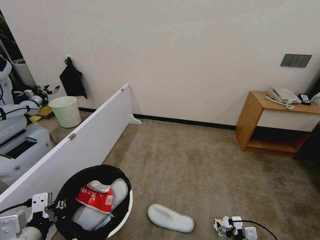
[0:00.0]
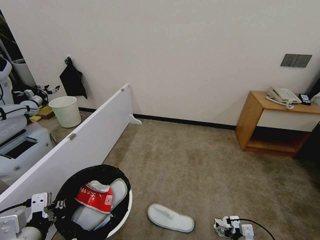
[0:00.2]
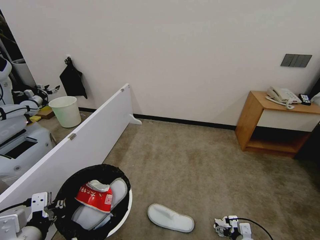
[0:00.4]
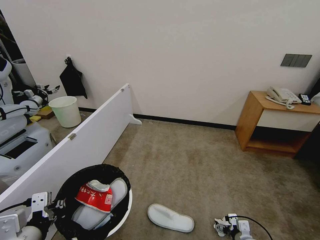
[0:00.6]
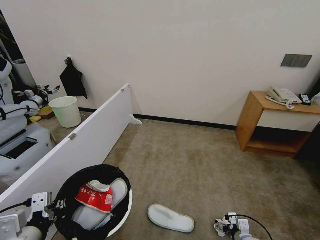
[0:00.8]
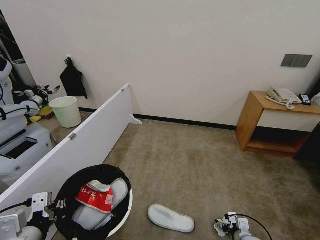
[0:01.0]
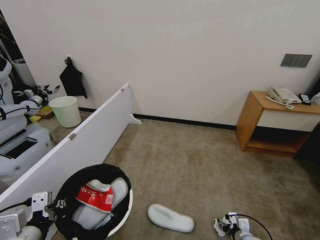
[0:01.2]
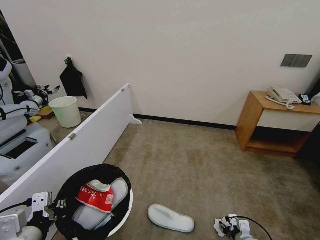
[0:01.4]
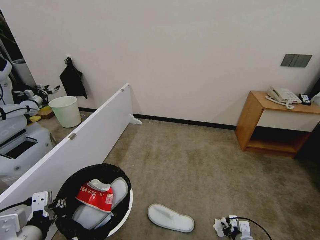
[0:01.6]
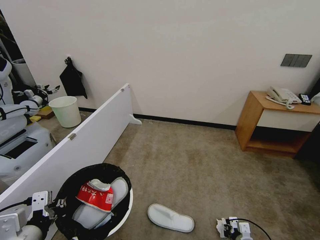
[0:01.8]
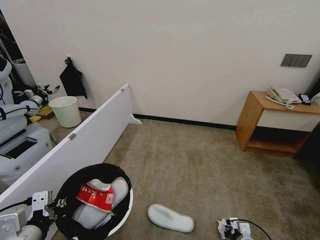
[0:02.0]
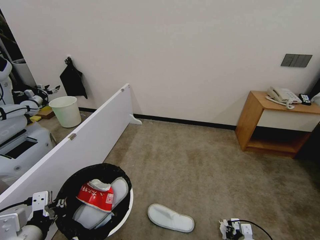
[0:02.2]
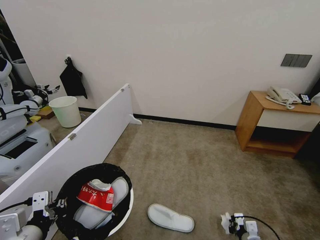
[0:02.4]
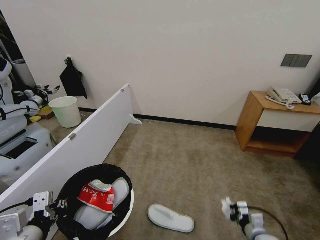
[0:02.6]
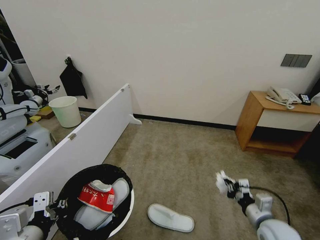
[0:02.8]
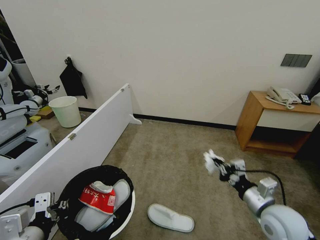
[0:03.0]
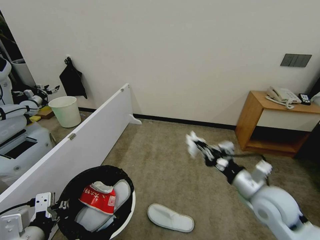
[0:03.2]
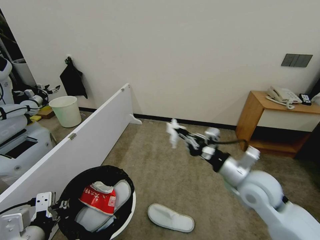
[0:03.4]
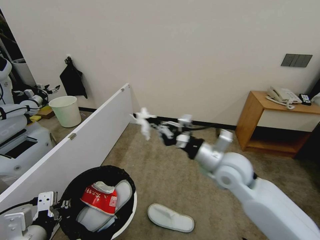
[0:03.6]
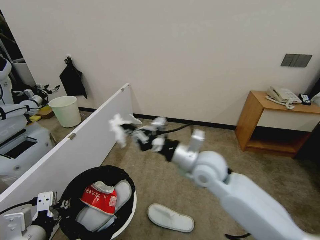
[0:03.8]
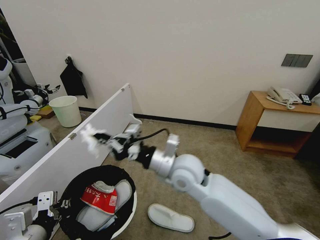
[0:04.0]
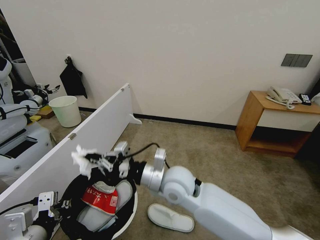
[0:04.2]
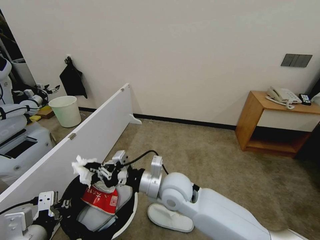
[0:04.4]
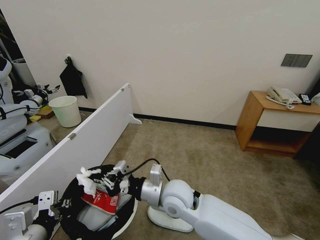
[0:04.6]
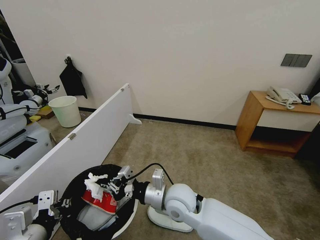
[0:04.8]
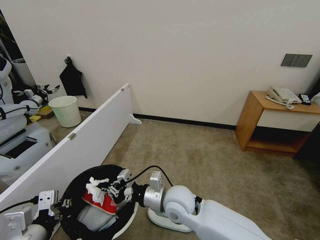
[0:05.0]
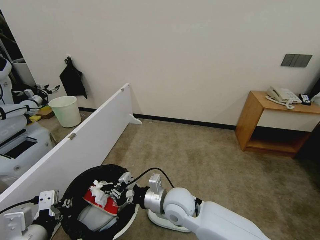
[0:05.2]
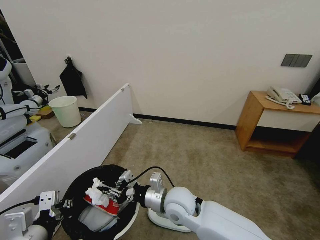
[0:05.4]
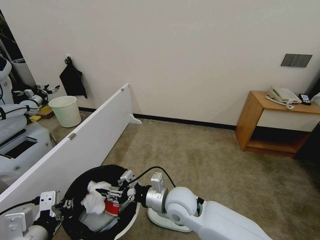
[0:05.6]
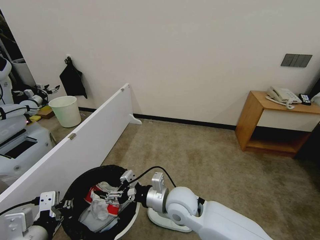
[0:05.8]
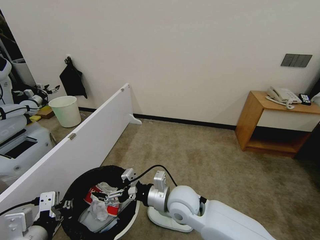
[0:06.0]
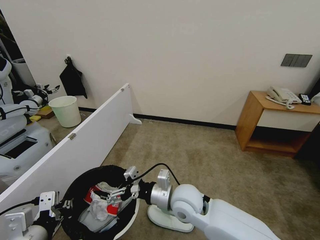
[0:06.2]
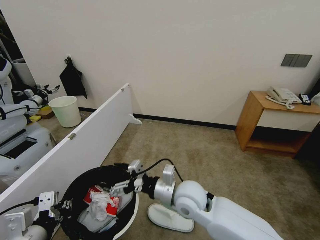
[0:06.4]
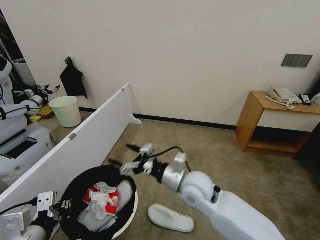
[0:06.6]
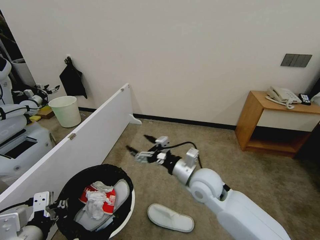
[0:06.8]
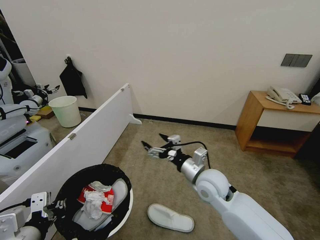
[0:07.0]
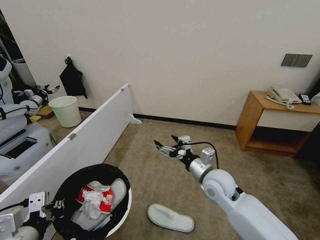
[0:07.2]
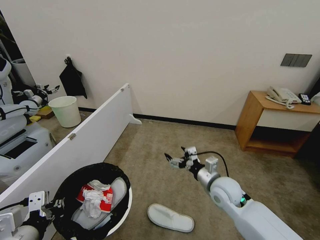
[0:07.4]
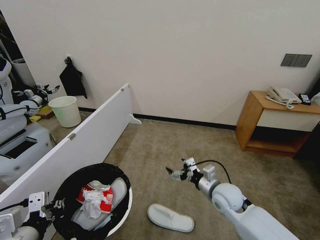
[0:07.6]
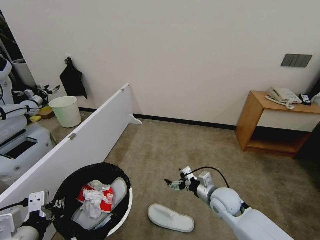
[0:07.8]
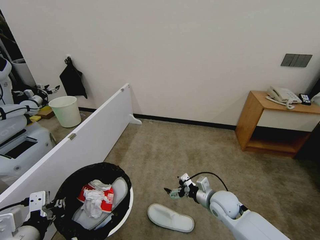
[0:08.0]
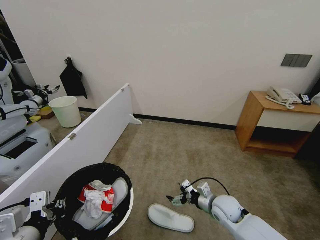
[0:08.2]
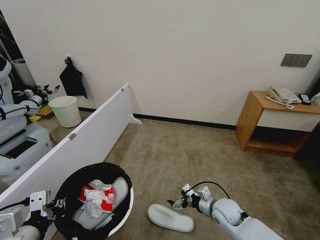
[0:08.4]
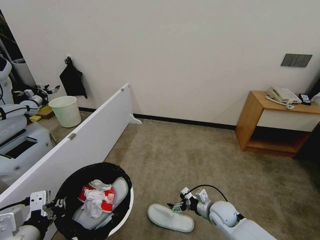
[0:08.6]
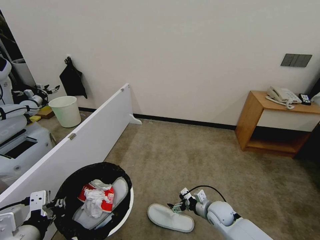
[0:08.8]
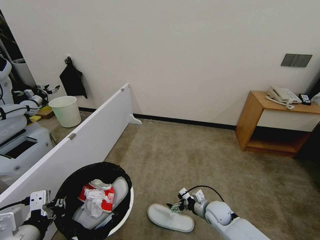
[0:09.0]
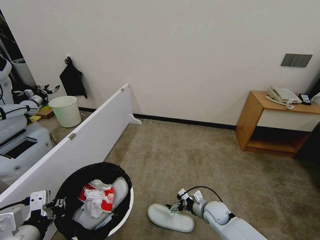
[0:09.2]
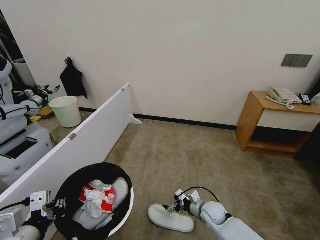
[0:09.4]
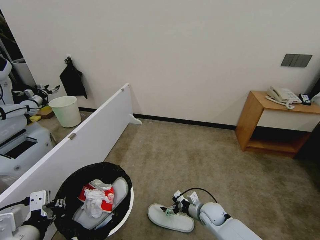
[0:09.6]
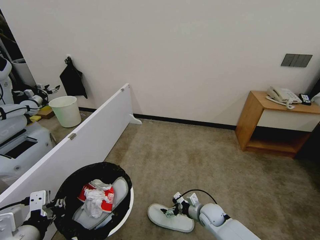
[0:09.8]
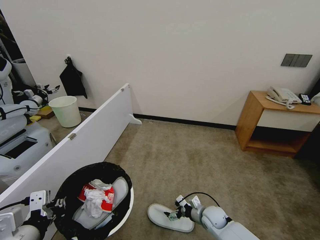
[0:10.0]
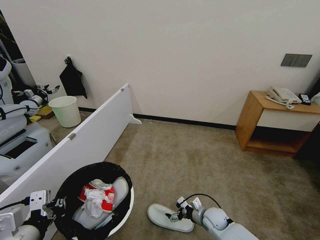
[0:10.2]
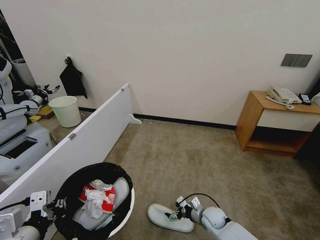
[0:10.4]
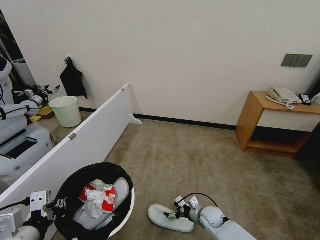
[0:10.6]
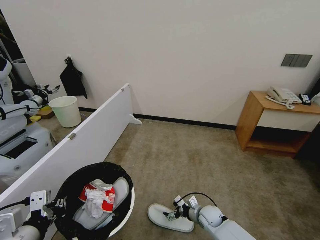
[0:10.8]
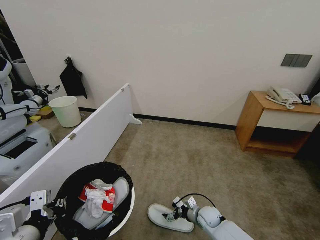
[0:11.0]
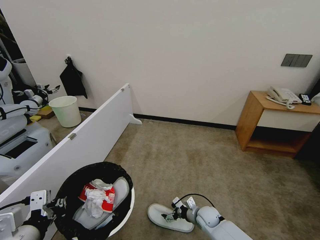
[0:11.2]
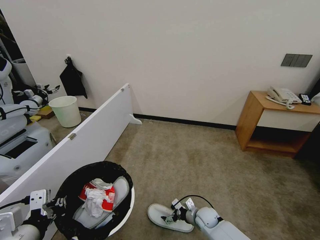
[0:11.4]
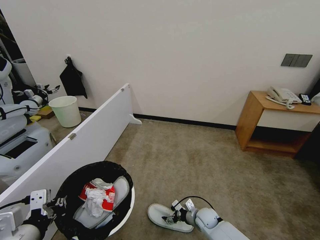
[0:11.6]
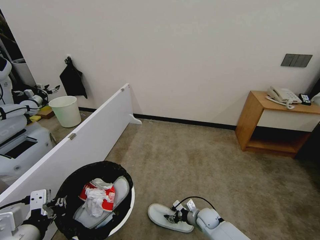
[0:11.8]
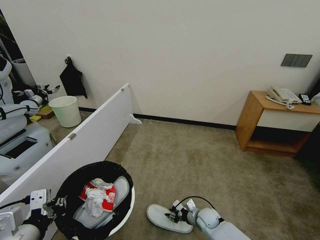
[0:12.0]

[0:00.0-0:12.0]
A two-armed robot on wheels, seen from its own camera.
Task of the whole recording: Pick up the trash bin, then pick up the garbage from the floor and place it into the trash bin.
0:00.0 to 0:01.6: The right gripper changes place by about 5 cm, and closes its fingers.
0:01.6 to 0:03.0: The right gripper travels upward by approximately 25 cm.
0:03.0 to 0:04.4: The right gripper heads to the left, covering roughly 30 cm.
0:04.4 to 0:06.0: The right gripper shifts by about 5 cm, and opens its fingers.
0:06.0 to 0:07.6: The right gripper travels to the right by some 15 cm.
0:07.6 to 0:09.0: The right gripper shifts approximately 15 cm downward.
0:09.0 to 0:10.4: The right gripper is displaced downward by about 5 cm.
0:10.4 to 0:12.0: The right gripper closes.

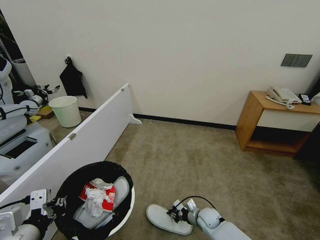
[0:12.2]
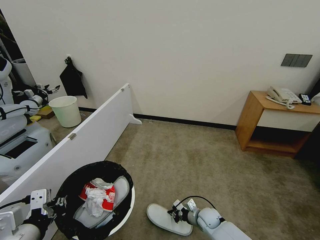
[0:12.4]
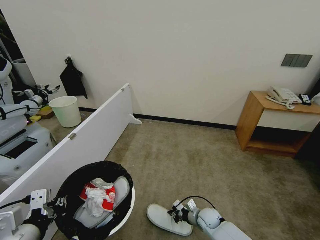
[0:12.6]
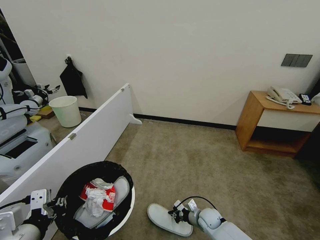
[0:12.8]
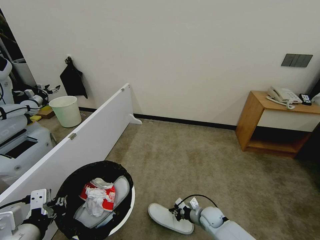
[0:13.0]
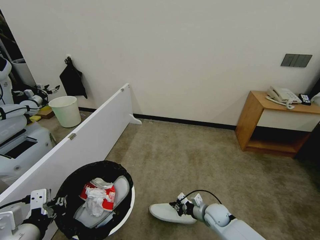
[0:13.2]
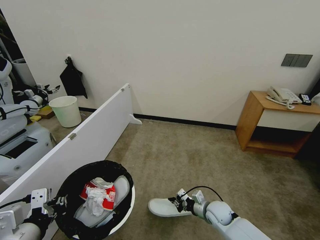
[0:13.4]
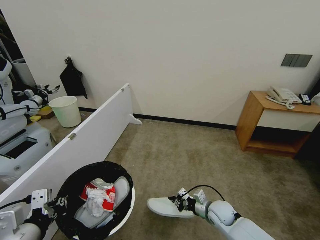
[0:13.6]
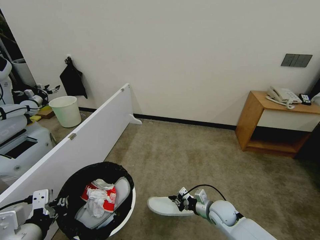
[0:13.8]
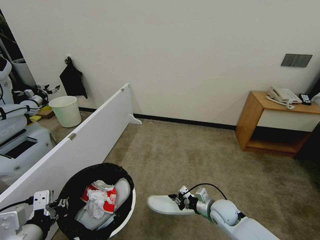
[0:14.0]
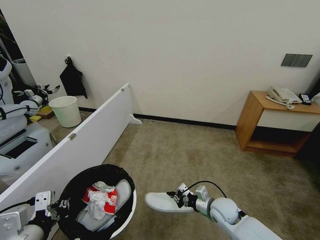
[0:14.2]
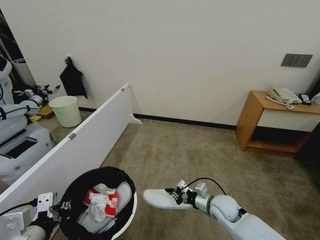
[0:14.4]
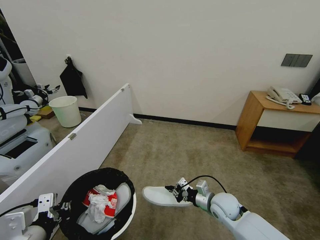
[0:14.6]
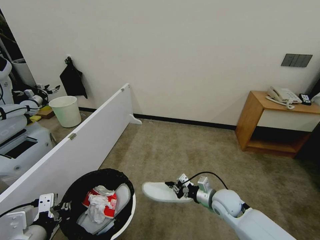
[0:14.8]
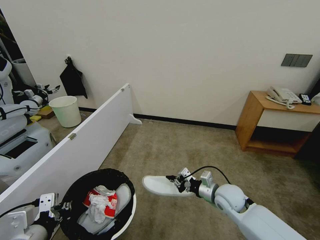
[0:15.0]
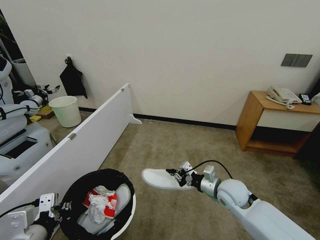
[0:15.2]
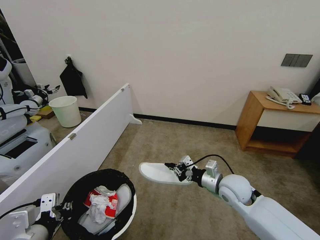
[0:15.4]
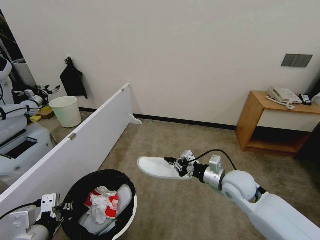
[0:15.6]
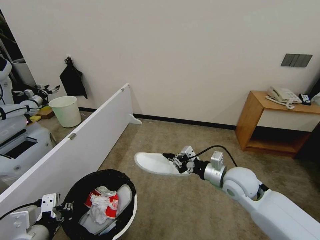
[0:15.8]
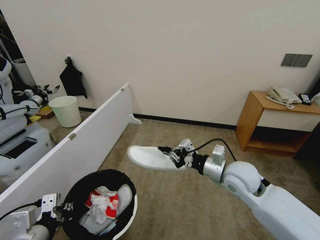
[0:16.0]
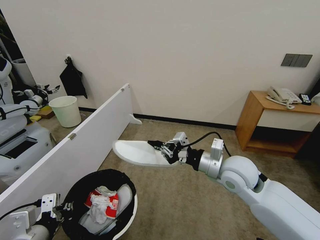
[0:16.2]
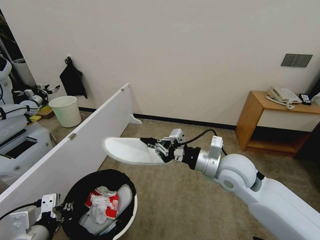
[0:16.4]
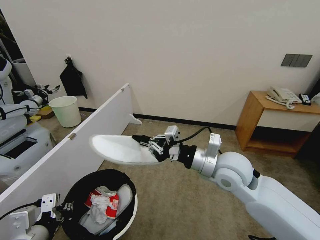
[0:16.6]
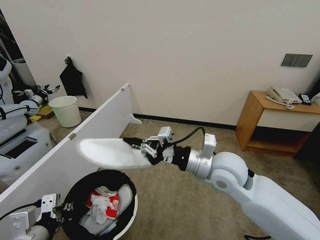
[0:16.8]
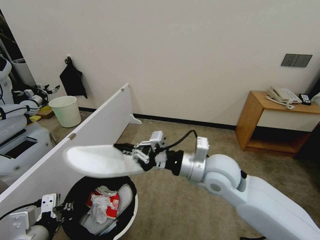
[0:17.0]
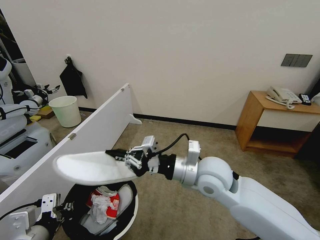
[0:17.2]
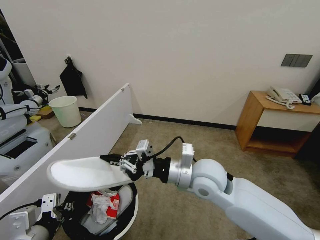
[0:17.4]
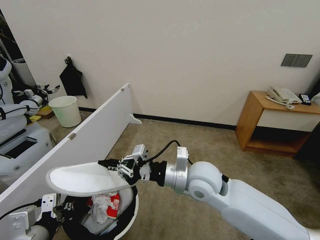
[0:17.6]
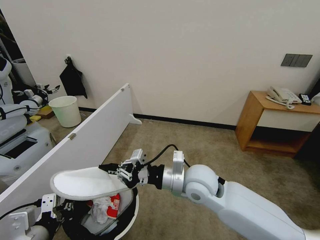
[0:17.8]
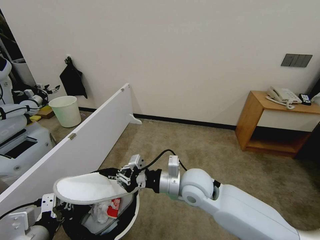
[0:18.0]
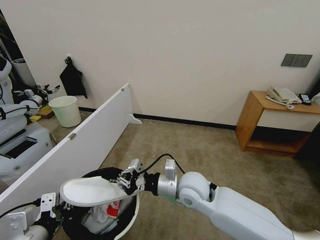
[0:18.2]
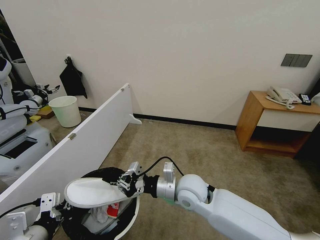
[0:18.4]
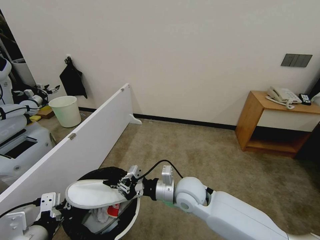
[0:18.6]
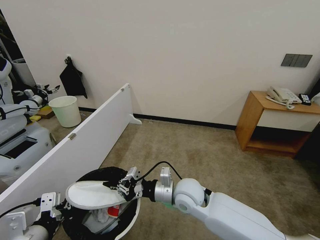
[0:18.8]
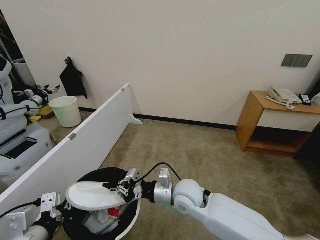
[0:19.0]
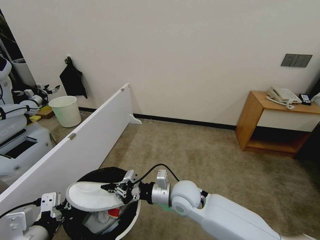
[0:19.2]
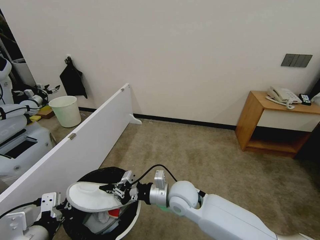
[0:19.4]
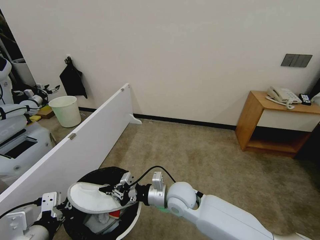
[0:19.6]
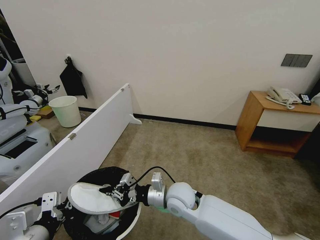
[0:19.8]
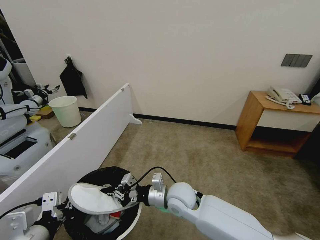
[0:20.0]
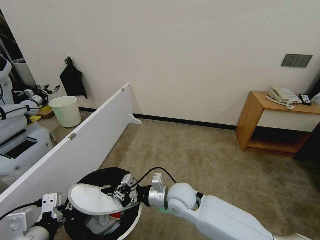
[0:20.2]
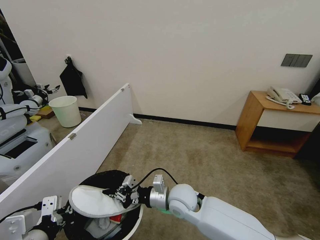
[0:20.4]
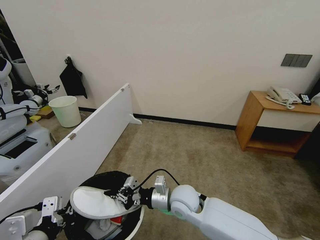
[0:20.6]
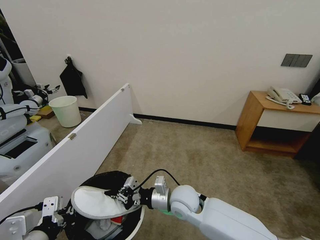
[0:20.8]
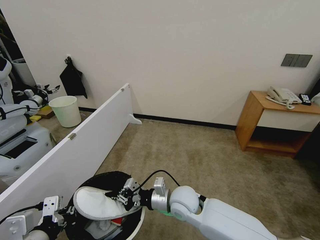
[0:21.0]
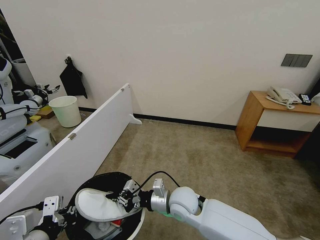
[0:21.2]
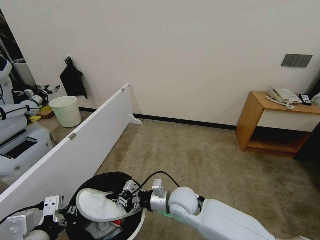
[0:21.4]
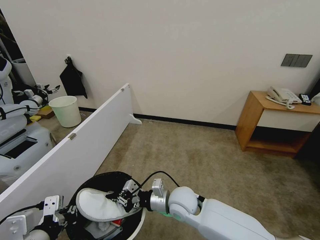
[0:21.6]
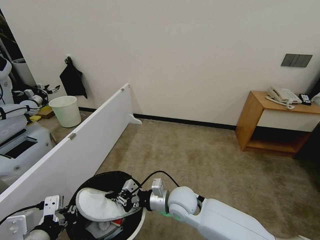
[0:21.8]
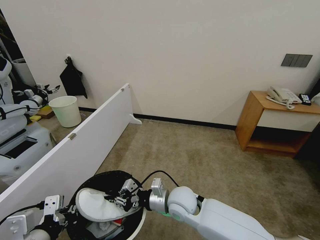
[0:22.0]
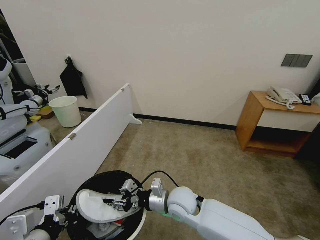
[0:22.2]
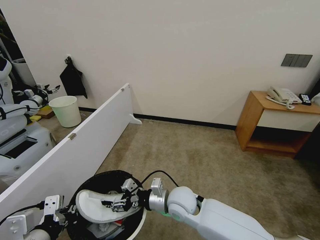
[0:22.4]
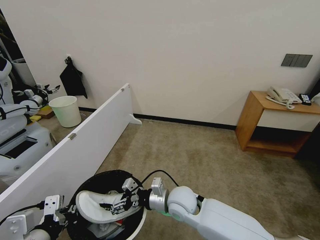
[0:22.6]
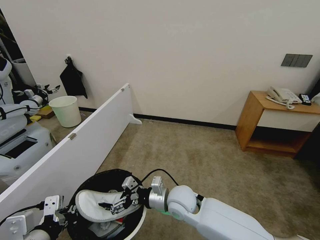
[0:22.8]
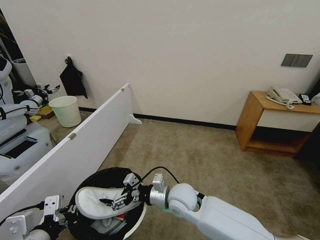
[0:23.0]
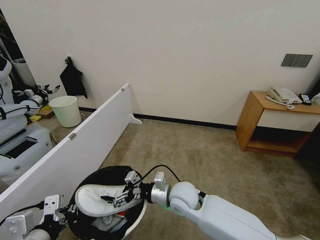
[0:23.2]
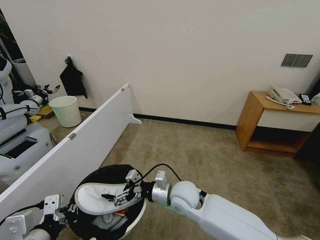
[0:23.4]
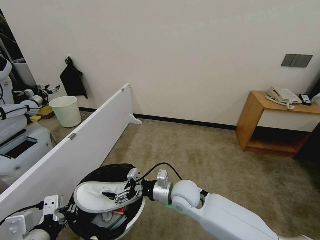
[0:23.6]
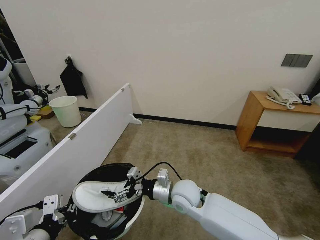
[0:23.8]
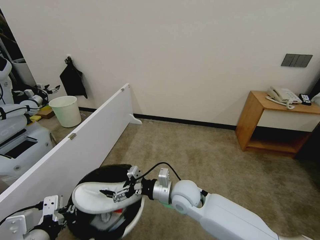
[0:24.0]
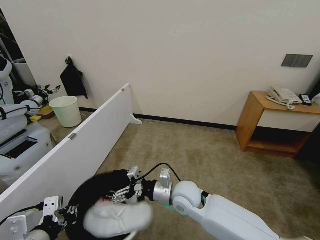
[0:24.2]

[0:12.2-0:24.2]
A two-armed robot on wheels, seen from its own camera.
Task of the whole recording: Pick up the trash bin, then pick up the garbage from the floor and place it into the trash bin.
0:12.2 to 0:13.8: The right gripper travels upward by about 10 cm.
0:13.8 to 0:15.2: The right gripper is displaced upward by some 15 cm.
0:15.2 to 0:16.6: The right gripper goes roughly 15 cm upward.
0:16.6 to 0:18.2: The right gripper shifts about 15 cm to the left and downward.
0:18.2 to 0:19.8: The right gripper is displaced downward by some 5 cm.
0:19.8 to 0:21.2: The grippers stay close to where they were, moving slightly.
0:21.2 to 0:22.6: The right gripper opens.
0:22.6 to 0:24.2: The grippers move only a little.
